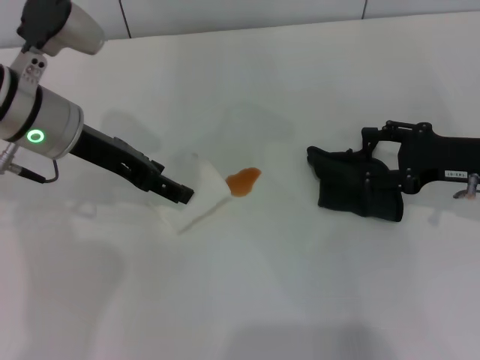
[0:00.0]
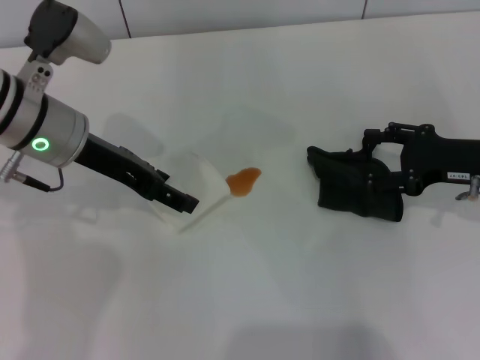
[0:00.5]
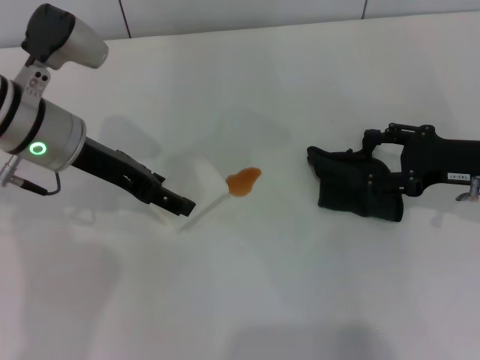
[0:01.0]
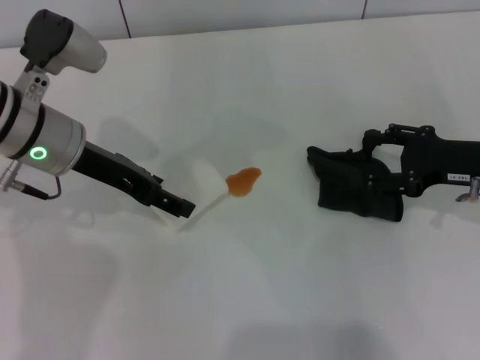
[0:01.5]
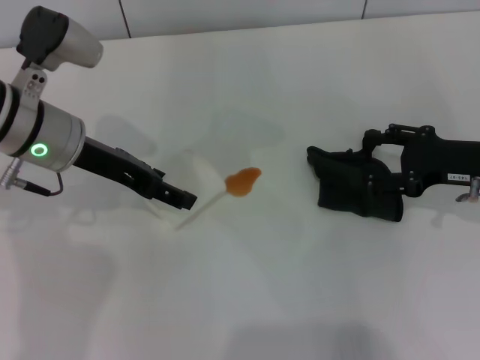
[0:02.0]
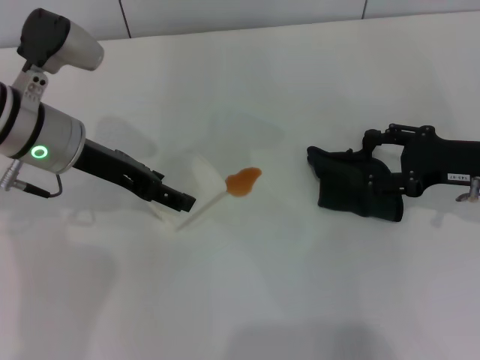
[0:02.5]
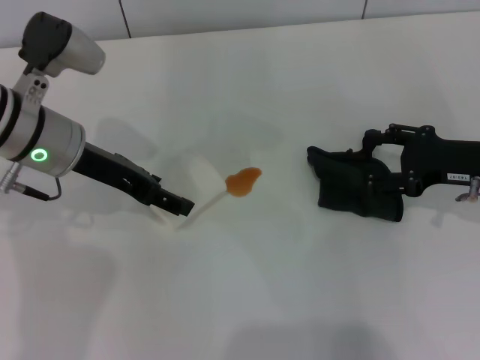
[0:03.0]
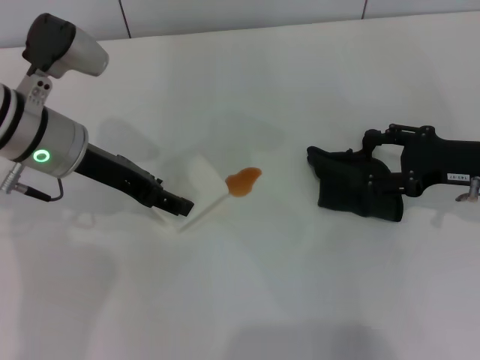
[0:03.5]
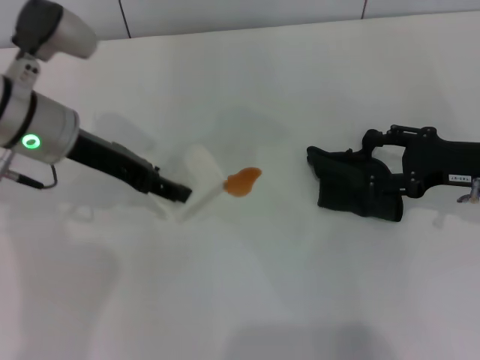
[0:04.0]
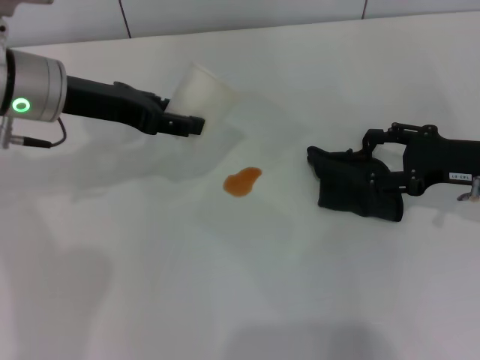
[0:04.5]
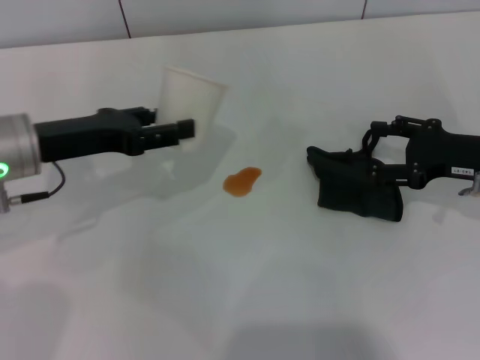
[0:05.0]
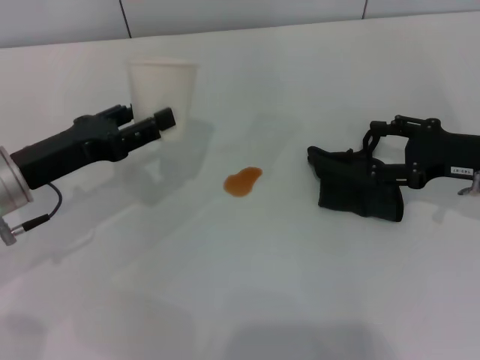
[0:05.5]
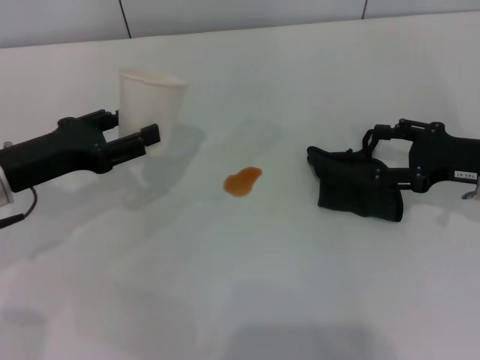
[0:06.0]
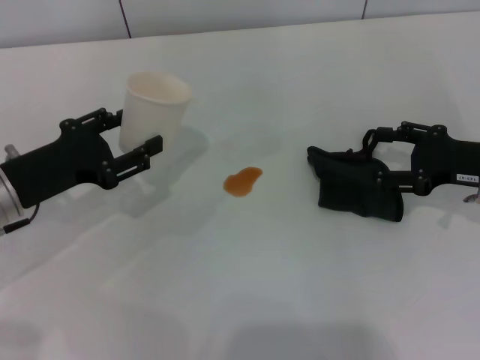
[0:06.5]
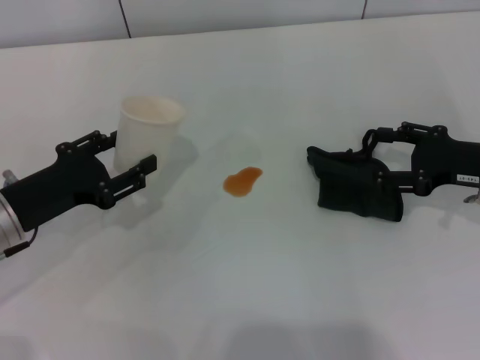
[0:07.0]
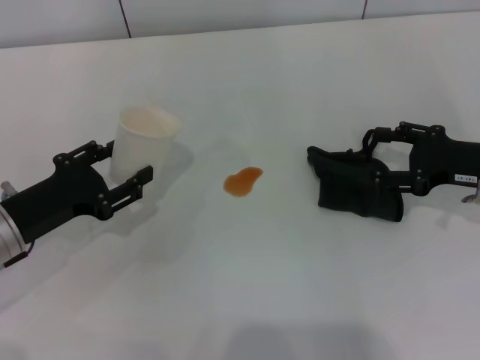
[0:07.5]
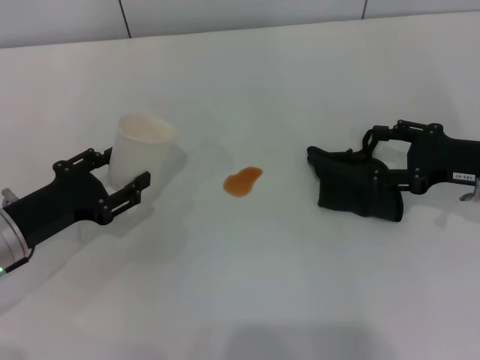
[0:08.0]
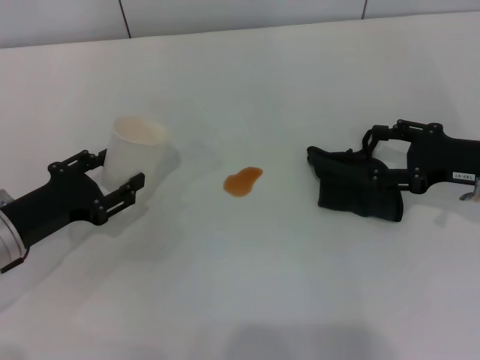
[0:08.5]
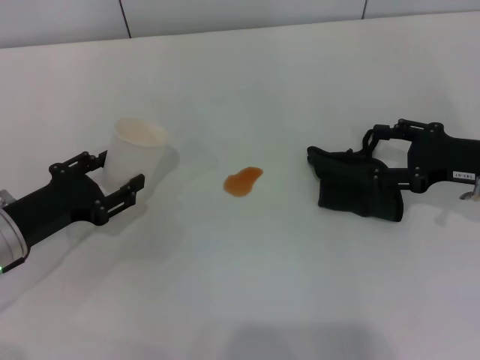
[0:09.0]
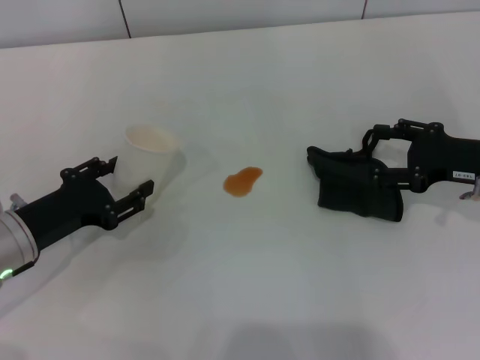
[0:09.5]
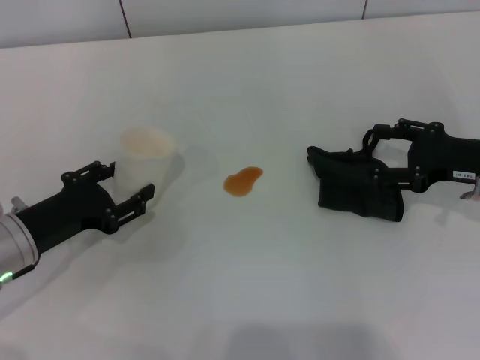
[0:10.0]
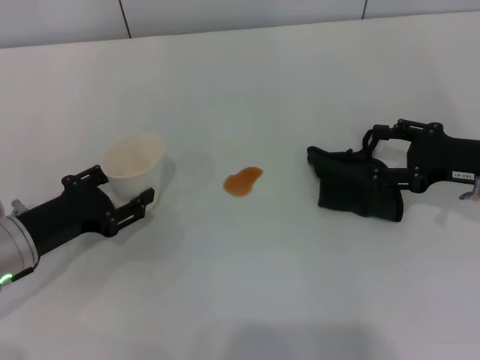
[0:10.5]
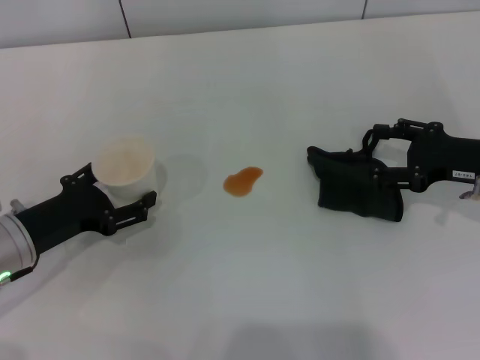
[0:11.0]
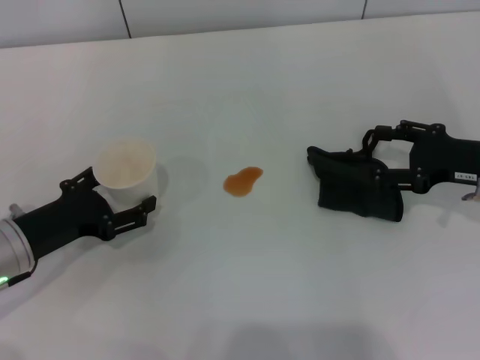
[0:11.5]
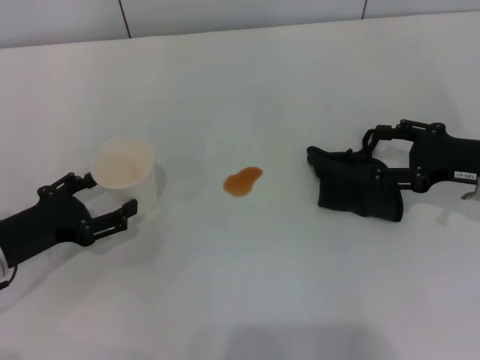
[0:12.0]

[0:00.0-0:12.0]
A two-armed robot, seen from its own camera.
Step, 0:00.0 to 0:03.0: Grasp the paper cup with the left gripper.
0:00.0 to 0:02.0: The grippers move only a little.
0:02.0 to 0:04.0: The left gripper closes.
0:04.0 to 0:06.0: The left gripper shifts roughly 10 cm to the left and backward.
0:06.0 to 0:08.0: The left gripper travels downward by about 5 cm.
0:08.0 to 0:10.0: Both grippers stay about where they are.
0:10.0 to 0:12.0: The left gripper opens its fingers.

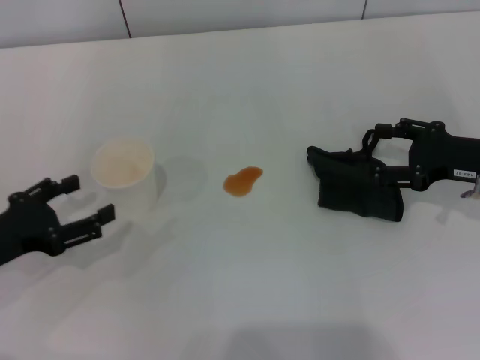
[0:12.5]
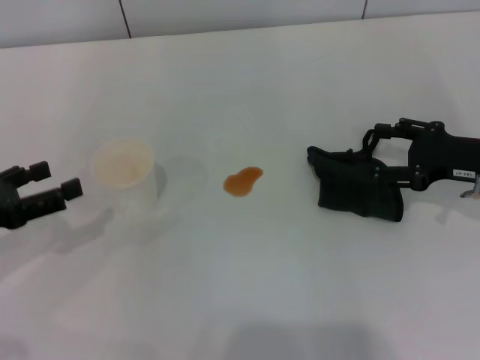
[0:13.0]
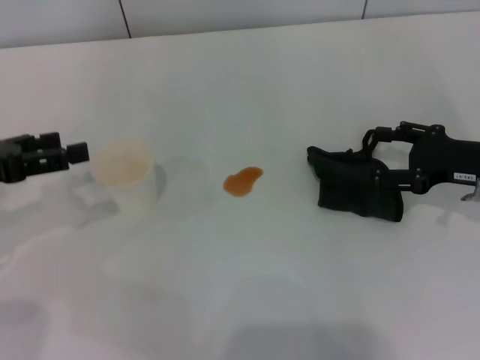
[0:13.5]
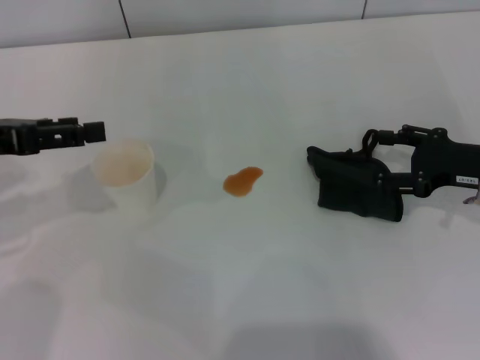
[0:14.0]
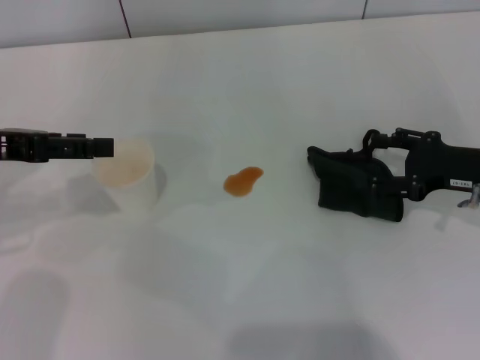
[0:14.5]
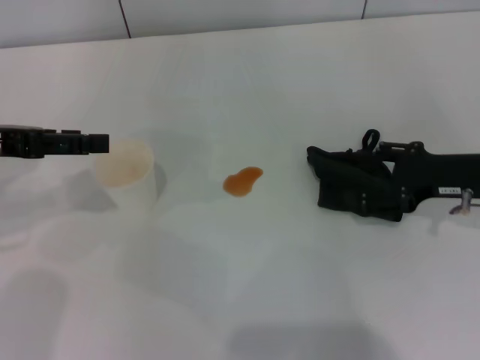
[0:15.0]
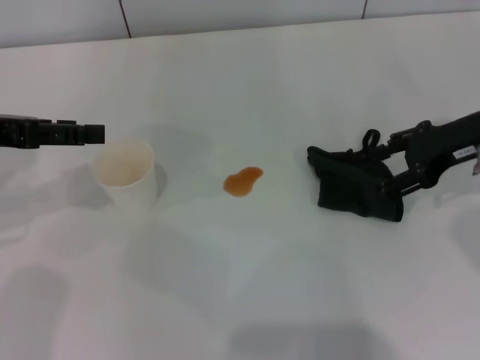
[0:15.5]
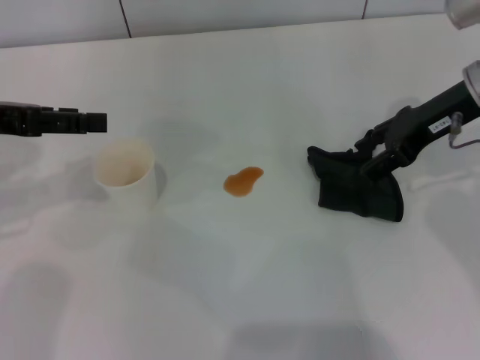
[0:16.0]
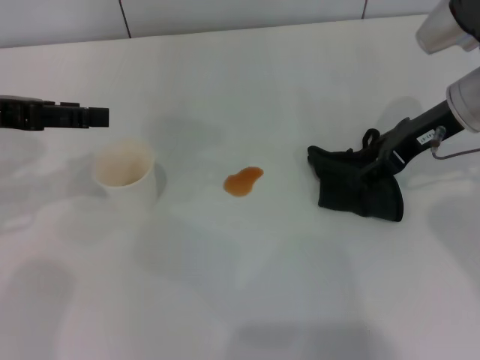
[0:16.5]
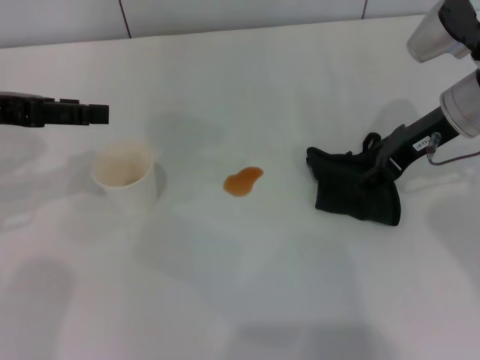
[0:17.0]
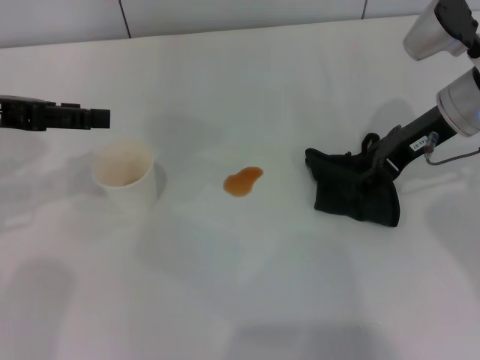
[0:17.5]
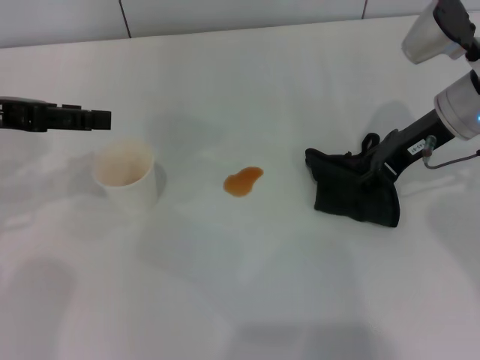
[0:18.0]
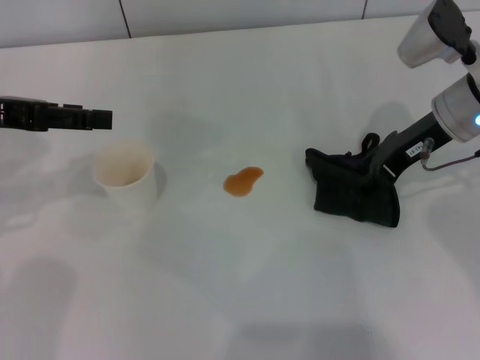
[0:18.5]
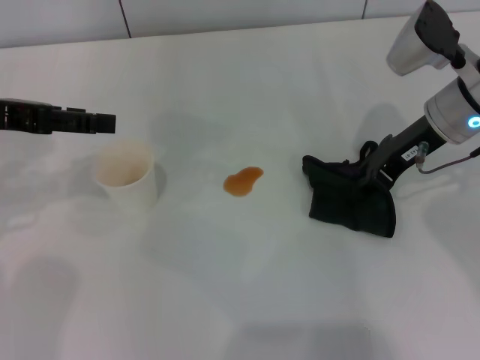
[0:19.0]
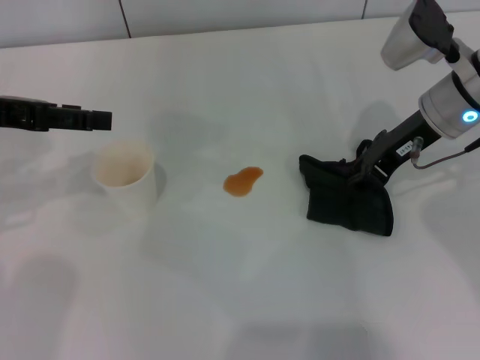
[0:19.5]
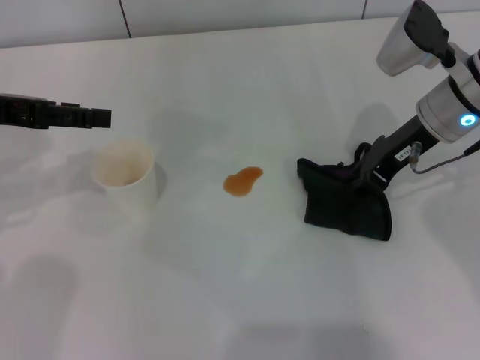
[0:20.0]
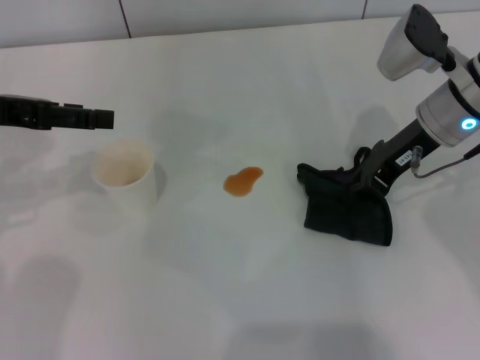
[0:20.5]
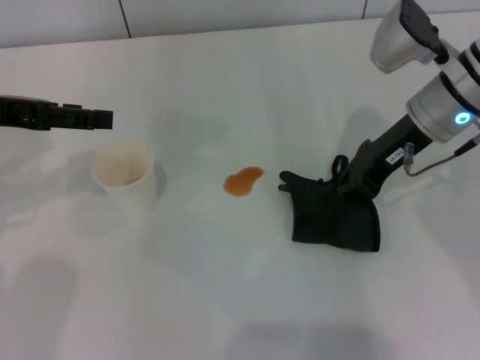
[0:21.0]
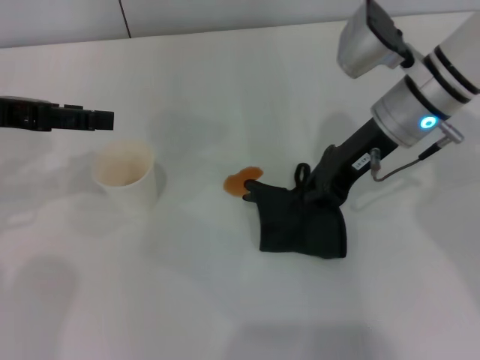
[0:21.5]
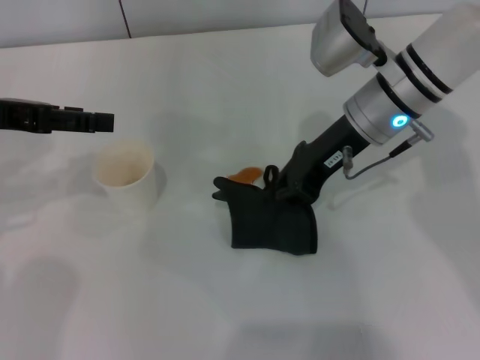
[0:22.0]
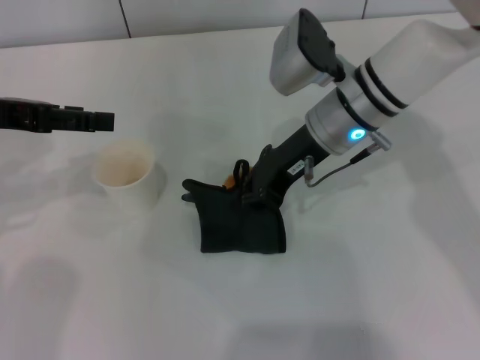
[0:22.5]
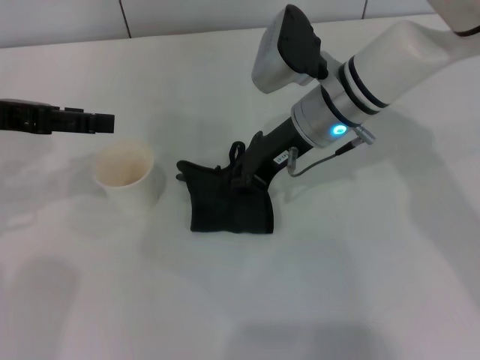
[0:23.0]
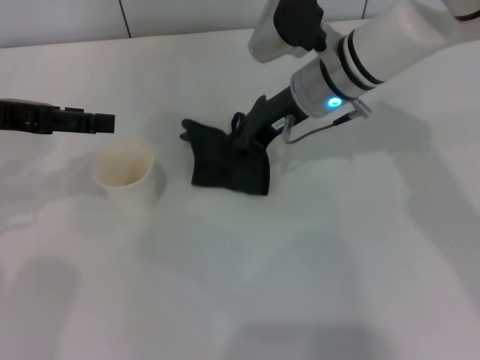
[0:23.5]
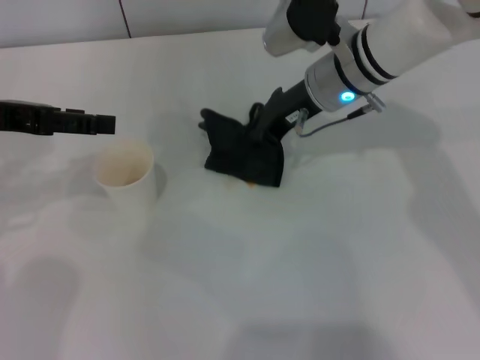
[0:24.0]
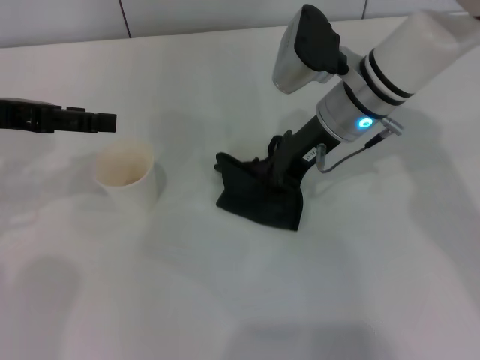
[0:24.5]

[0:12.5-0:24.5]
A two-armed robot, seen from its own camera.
Step, 0:13.0 to 0:19.0: Grasp the rag with the right gripper.
0:12.5 to 0:14.5: The left gripper goes roughly 15 cm upward and forward.
0:14.5 to 0:16.5: The right gripper is displaced forward, upward and to the left by approximately 10 cm.
0:16.5 to 0:18.5: There are only small adjustments of the grippers.
0:18.5 to 0:20.5: The right gripper closes.
0:20.5 to 0:22.5: The right gripper shifts about 10 cm to the left.
0:22.5 to 0:24.5: The grippers move only a little.

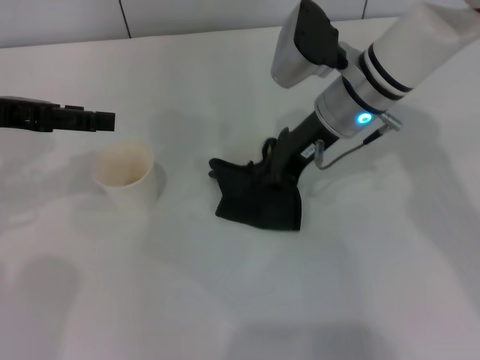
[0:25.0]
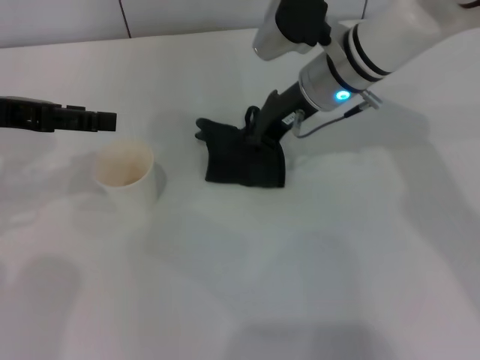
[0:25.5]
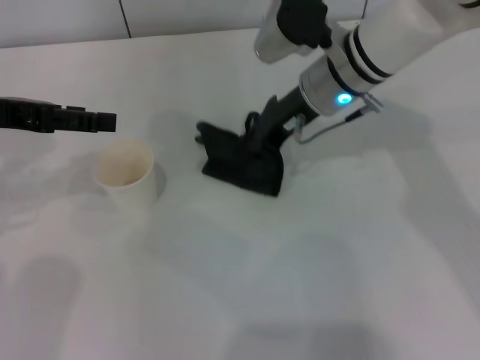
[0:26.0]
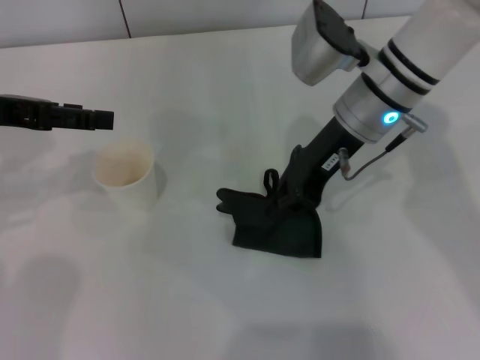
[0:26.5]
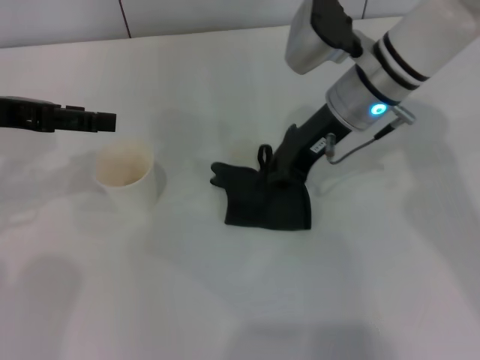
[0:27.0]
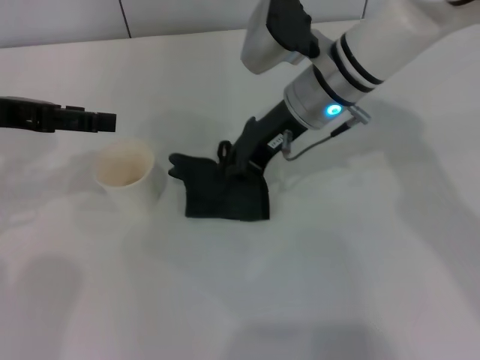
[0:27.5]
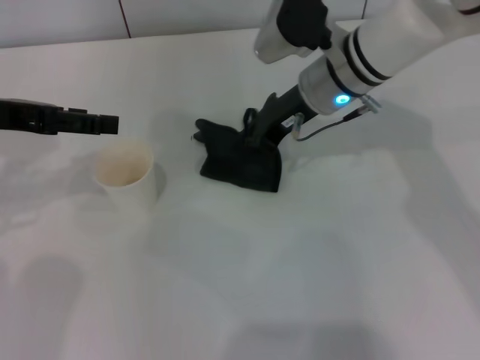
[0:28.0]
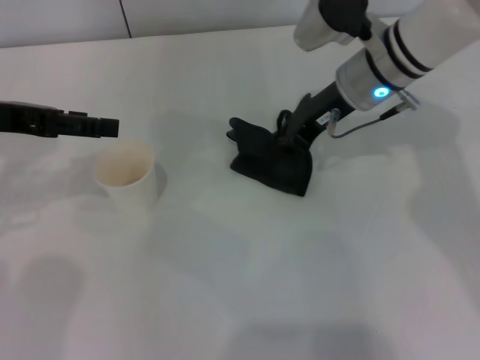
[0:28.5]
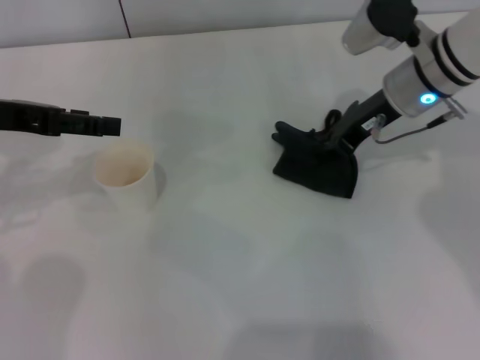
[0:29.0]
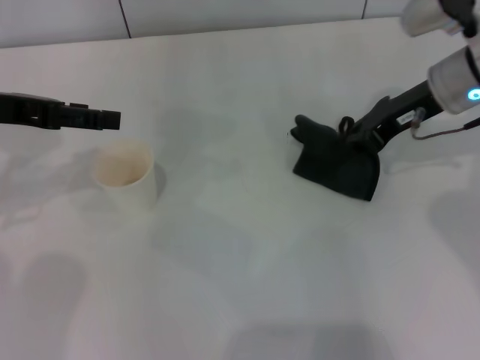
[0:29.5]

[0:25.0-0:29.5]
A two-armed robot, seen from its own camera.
0:25.0 to 0:27.0: The grippers make only small movements.
0:27.0 to 0:29.5: The right gripper heads to the right, covering about 10 cm.
